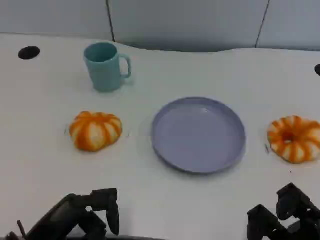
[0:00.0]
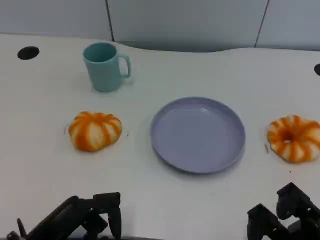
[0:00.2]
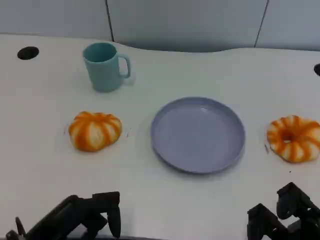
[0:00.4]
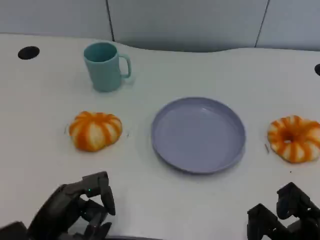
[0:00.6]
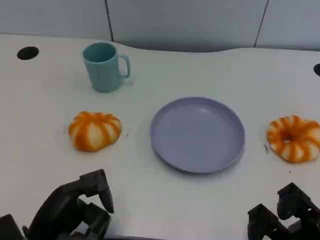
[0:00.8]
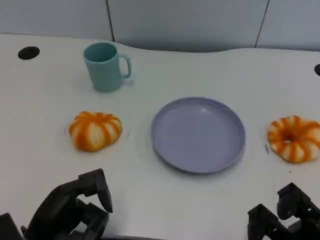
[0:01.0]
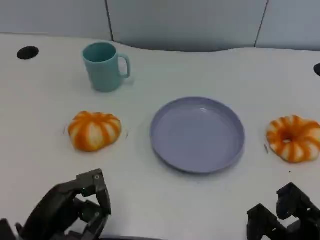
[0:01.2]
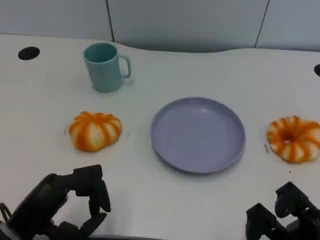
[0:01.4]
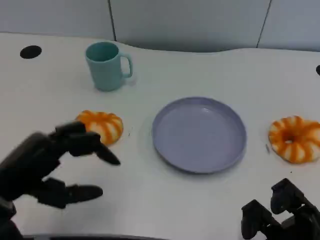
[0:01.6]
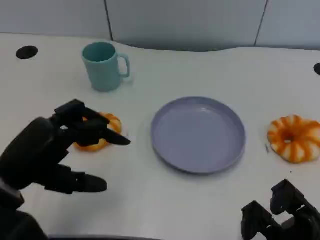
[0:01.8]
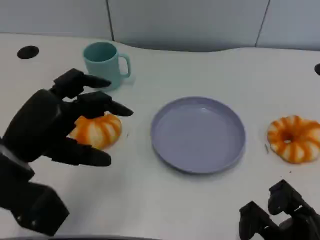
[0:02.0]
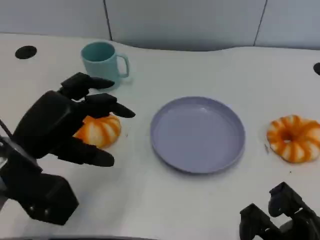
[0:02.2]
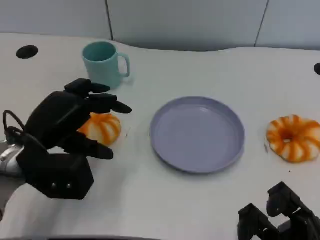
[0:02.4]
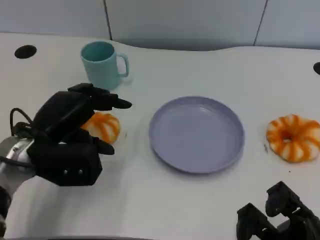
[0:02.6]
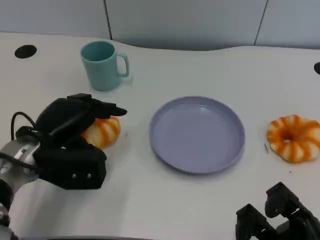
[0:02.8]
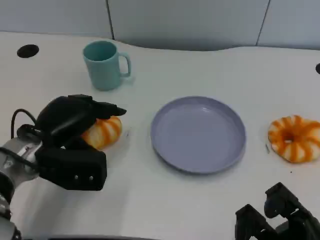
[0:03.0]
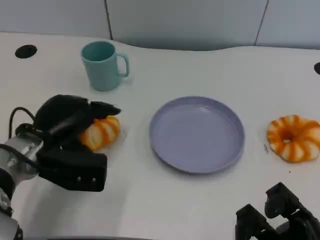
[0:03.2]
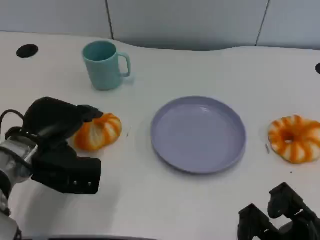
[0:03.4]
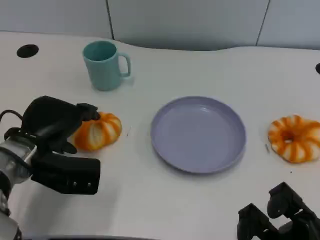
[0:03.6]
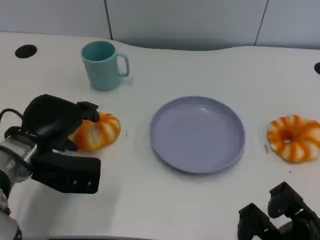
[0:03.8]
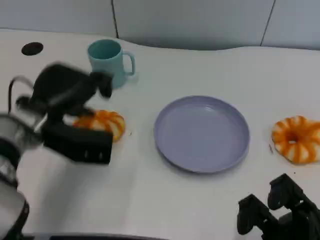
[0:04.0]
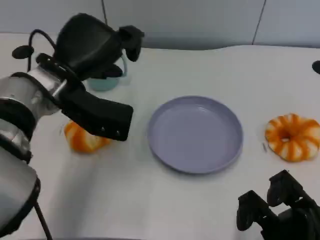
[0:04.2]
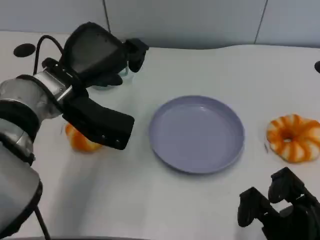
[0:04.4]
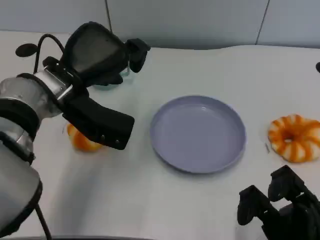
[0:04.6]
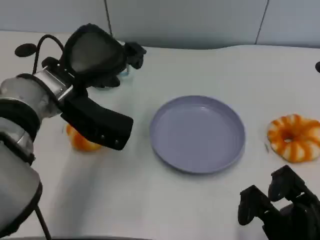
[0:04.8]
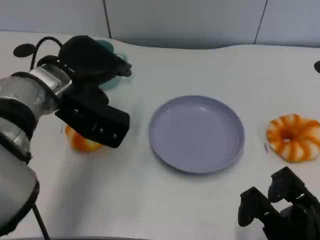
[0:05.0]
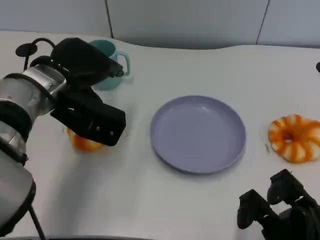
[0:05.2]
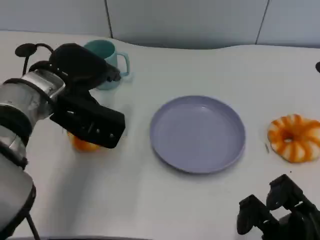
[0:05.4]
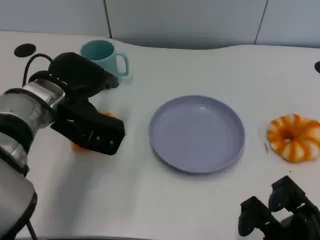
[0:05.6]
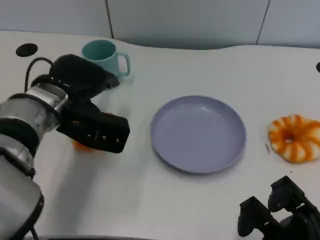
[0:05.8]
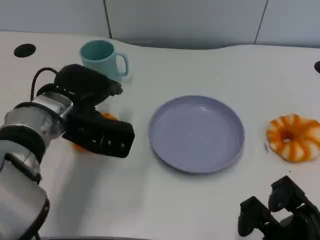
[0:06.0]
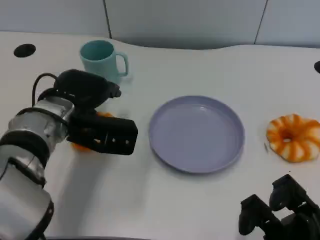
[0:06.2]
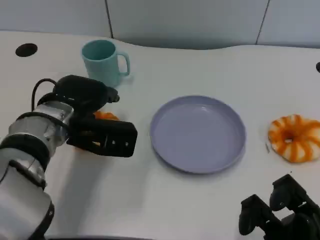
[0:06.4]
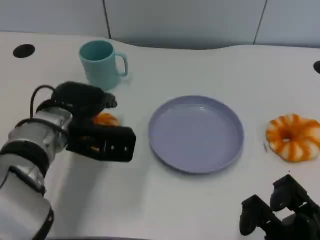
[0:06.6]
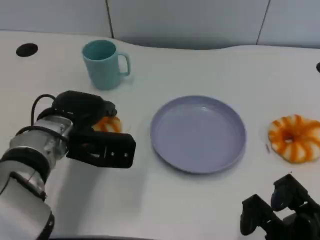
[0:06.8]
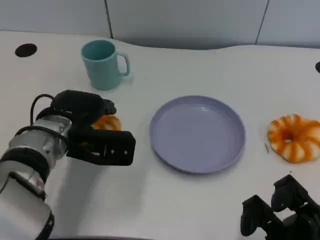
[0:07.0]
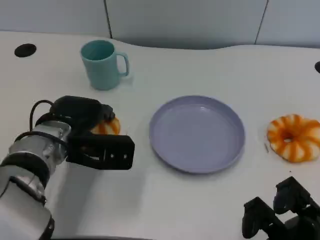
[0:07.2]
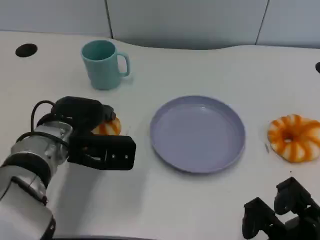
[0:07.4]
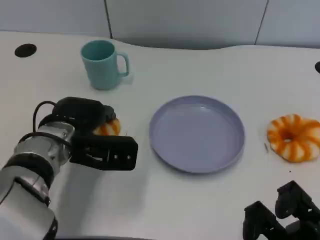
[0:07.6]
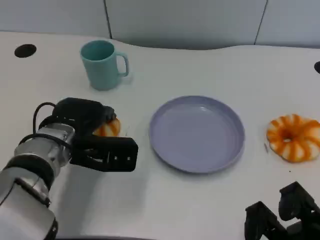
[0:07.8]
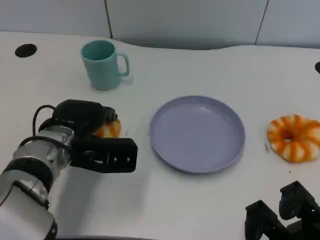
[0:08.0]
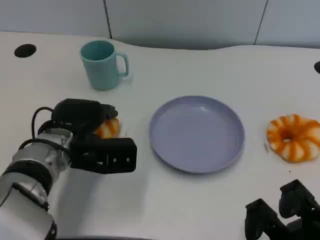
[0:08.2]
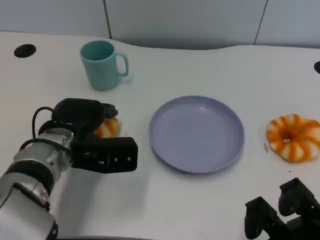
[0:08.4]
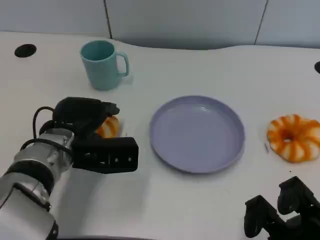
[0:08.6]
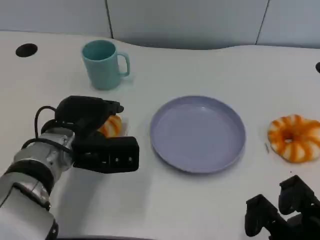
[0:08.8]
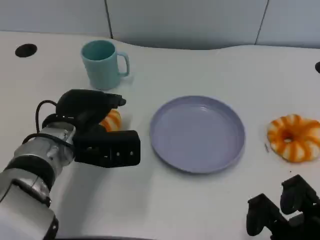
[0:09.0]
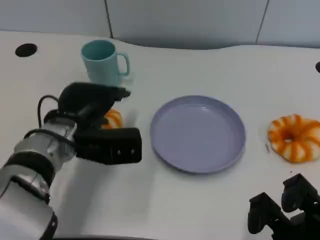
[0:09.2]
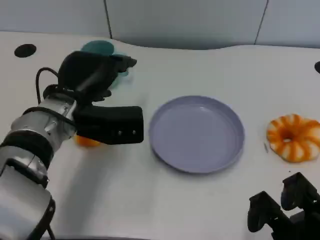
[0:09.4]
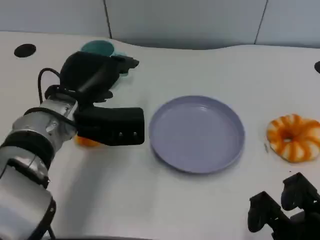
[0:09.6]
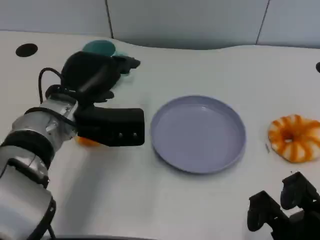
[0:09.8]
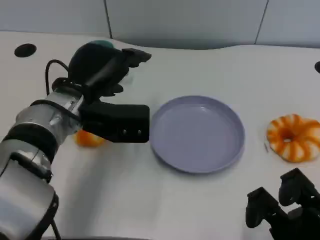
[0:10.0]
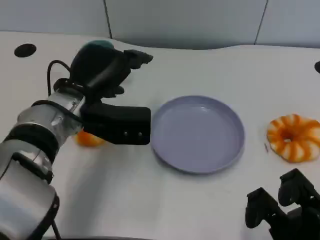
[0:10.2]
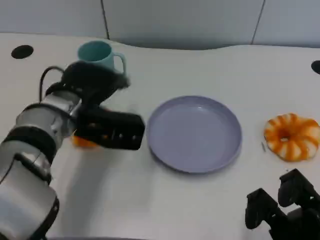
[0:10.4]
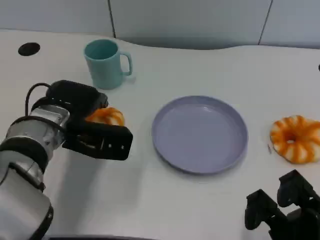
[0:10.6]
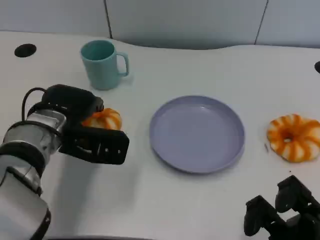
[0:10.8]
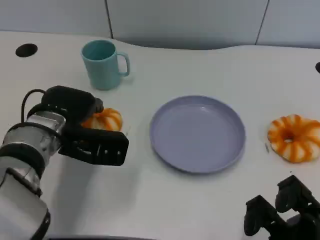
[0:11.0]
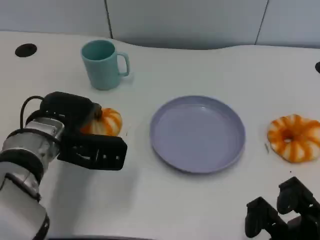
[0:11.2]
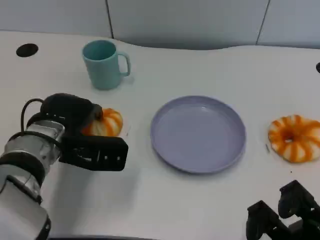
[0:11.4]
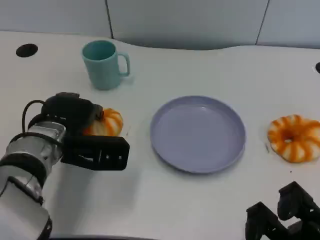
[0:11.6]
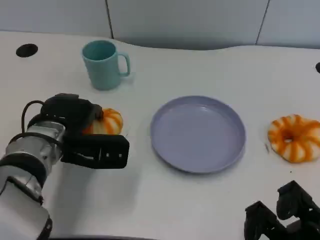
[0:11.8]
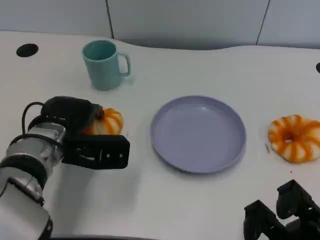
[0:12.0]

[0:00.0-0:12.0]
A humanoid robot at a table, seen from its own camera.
Task of the whole recording: Grasp the bread from the table and place it into the plate.
0:00.0 to 0:01.6: The left hand moves upward, some 10 cm.
0:01.6 to 0:03.0: The left hand moves forward, approximately 10 cm.
0:03.0 to 0:04.4: The left hand is displaced upward by roughly 10 cm.
0:06.0 to 0:09.0: There are only small adjustments of the hands.

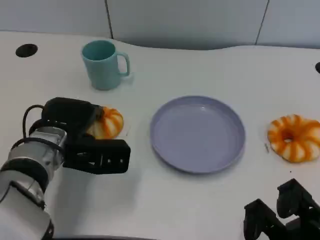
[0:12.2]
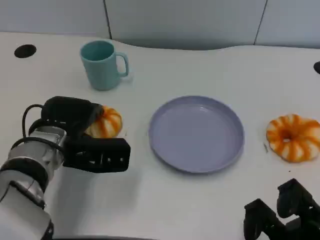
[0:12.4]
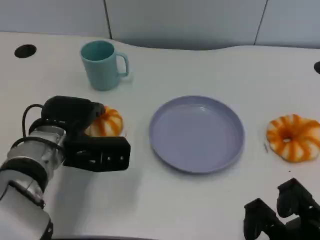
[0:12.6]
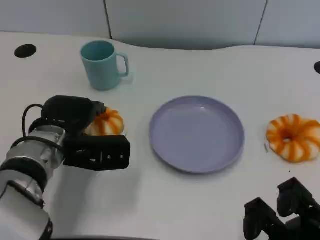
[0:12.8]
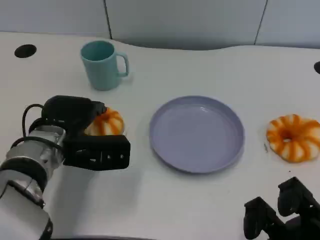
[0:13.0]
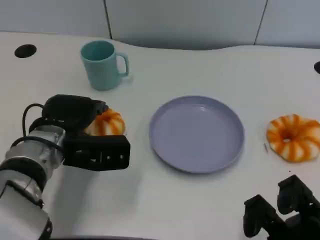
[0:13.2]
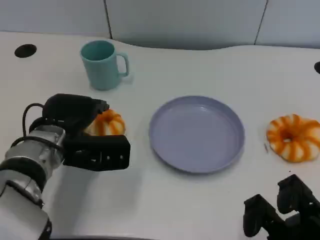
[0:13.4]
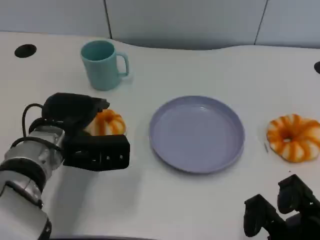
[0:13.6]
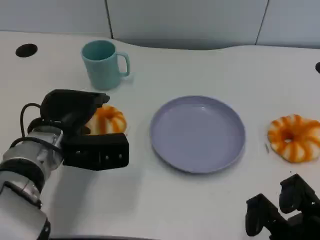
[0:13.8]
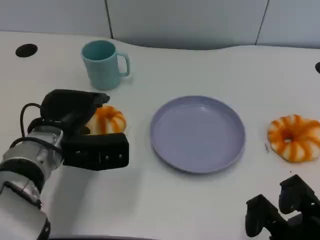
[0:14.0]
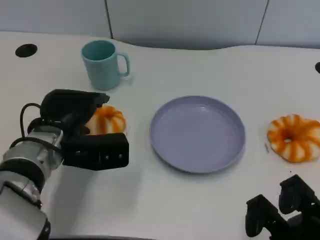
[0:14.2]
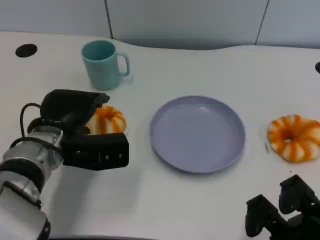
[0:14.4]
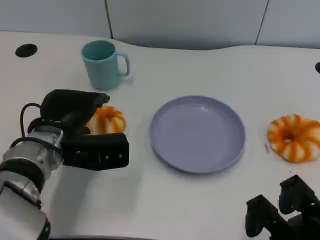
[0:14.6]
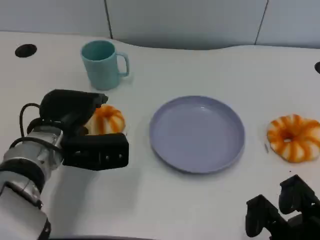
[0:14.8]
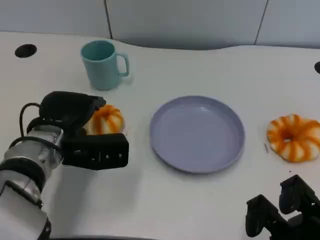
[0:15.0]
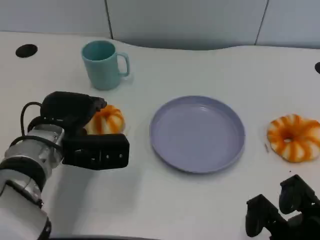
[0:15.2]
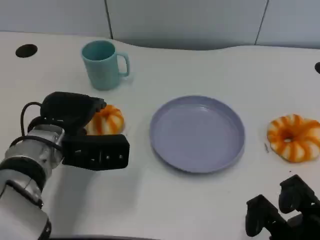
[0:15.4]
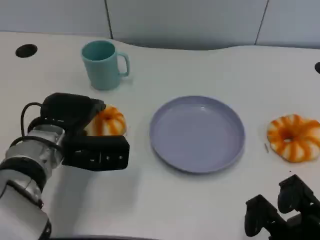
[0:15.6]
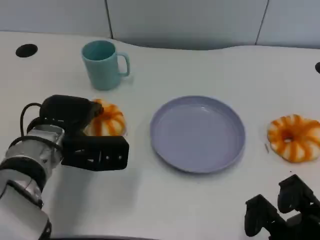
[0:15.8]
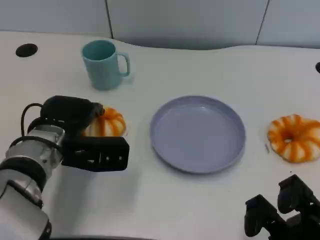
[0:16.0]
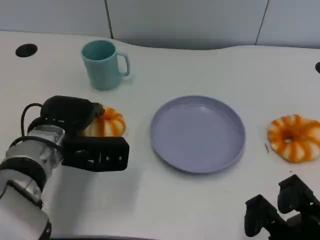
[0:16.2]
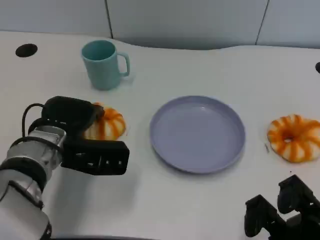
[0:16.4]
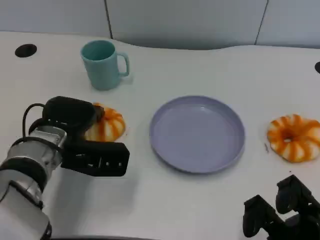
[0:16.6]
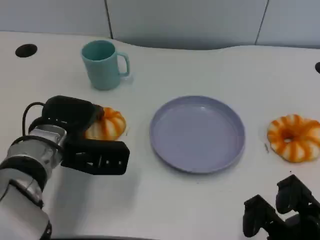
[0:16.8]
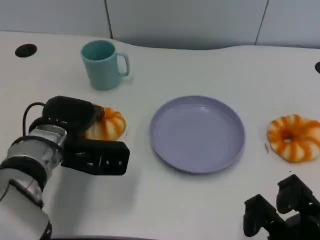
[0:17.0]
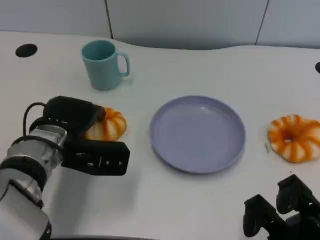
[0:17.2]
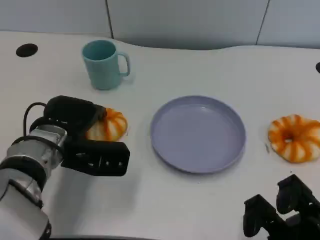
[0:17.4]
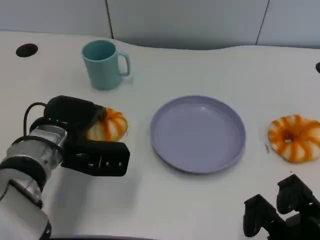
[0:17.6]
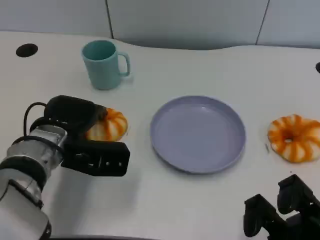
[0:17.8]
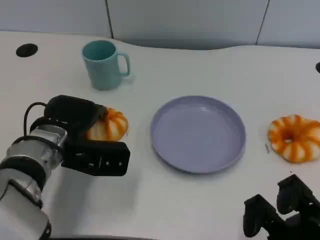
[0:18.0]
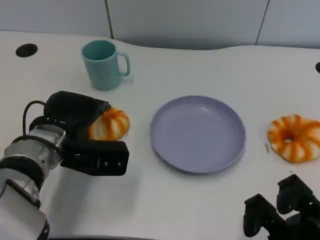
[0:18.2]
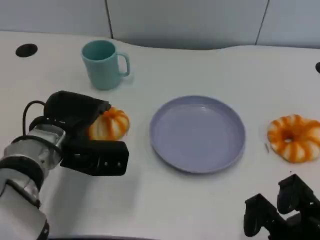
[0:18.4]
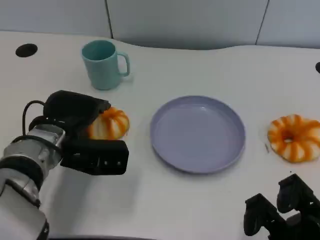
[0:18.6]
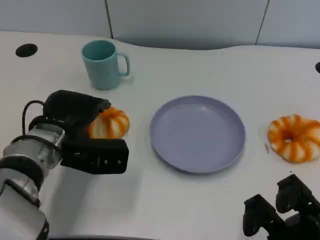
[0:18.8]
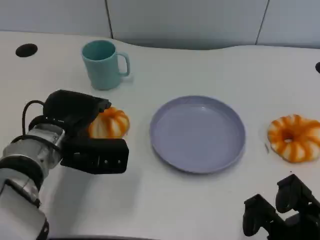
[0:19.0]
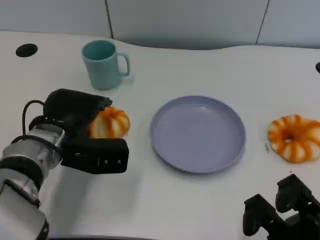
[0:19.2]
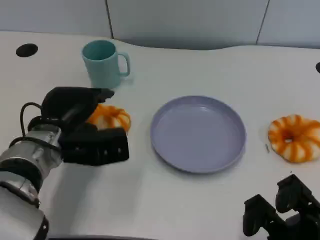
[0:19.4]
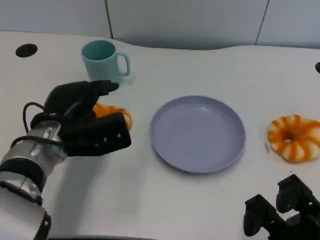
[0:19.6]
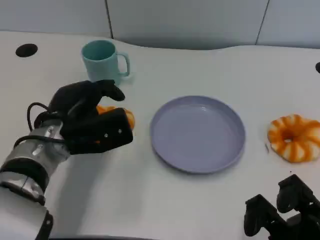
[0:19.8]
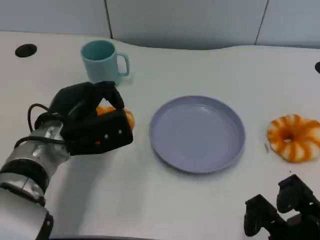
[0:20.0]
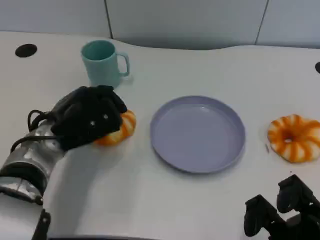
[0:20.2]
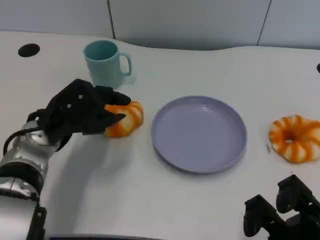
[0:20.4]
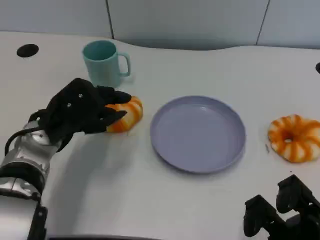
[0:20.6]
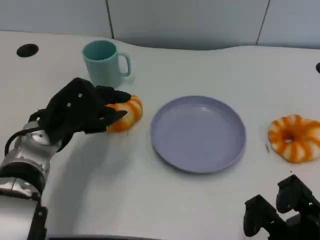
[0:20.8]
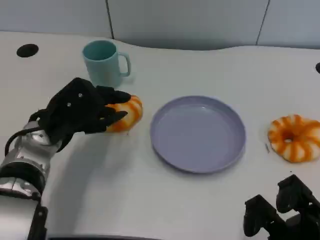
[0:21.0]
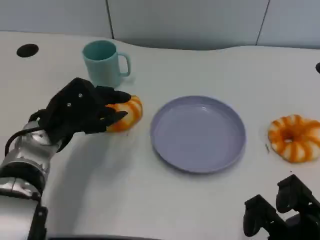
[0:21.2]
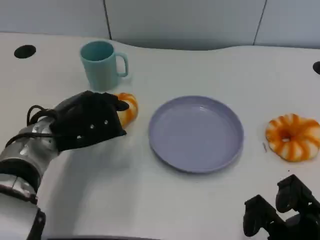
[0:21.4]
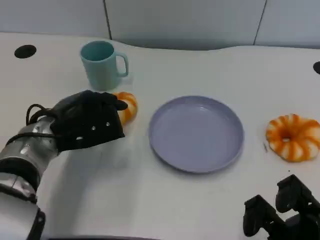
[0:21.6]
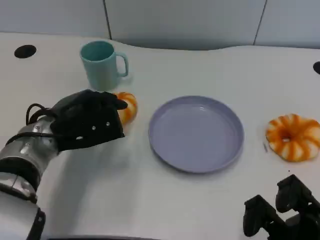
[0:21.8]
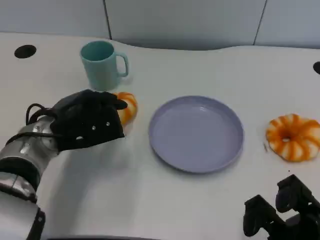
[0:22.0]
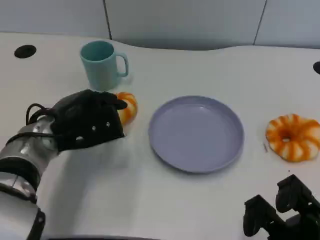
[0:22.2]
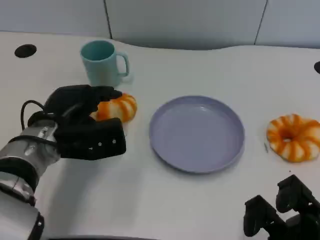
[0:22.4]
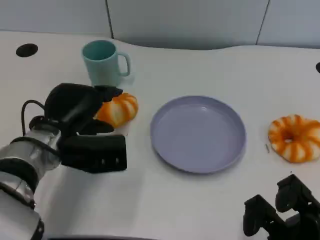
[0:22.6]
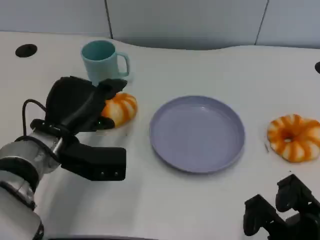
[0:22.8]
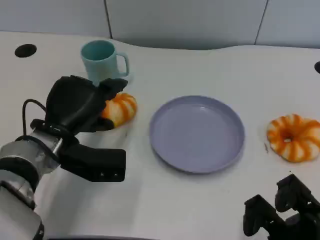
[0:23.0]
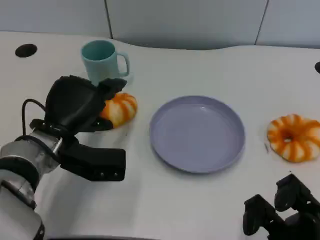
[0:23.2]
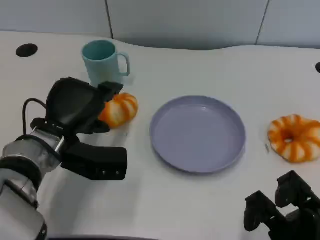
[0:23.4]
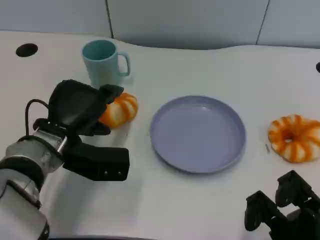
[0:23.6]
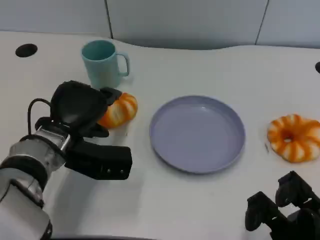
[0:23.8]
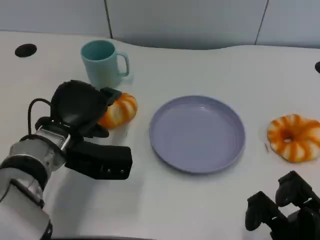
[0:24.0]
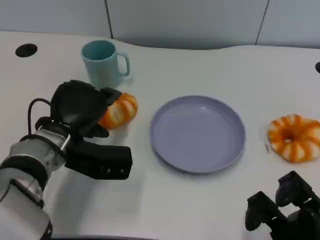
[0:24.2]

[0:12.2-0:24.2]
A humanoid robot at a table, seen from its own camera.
Task of the whole recording: Grasp the bread from the table and place it into the plate.
0:12.2 to 0:18.2: The hands stay close to where they were, moving slightly.
0:22.6 to 0:24.2: There are only small adjustments of the hands.
